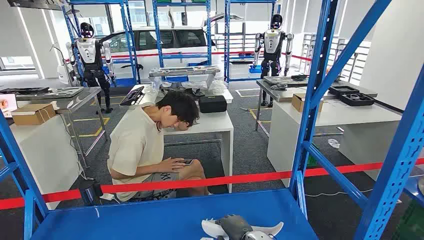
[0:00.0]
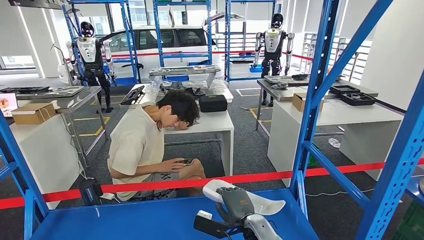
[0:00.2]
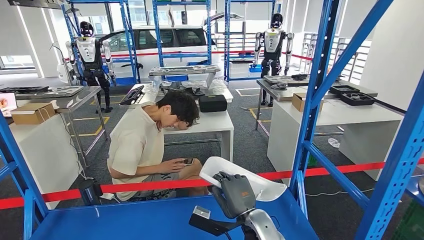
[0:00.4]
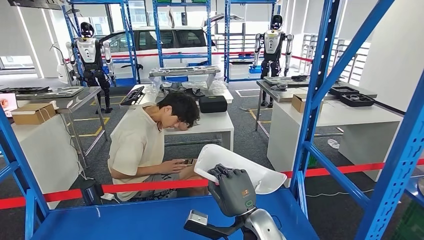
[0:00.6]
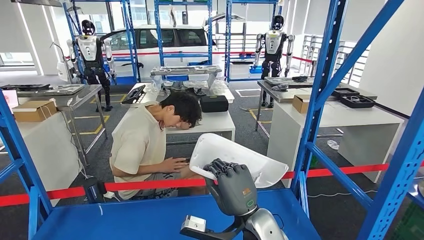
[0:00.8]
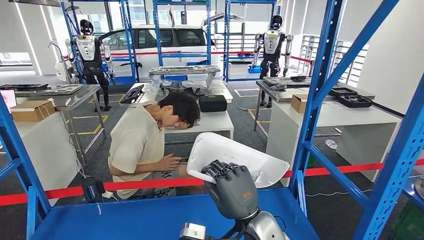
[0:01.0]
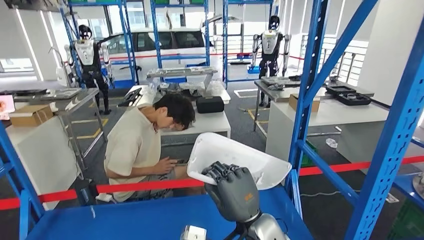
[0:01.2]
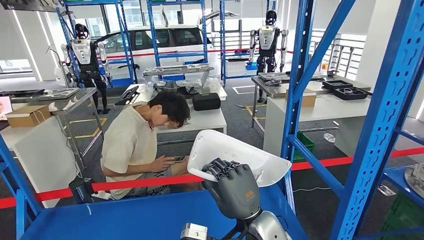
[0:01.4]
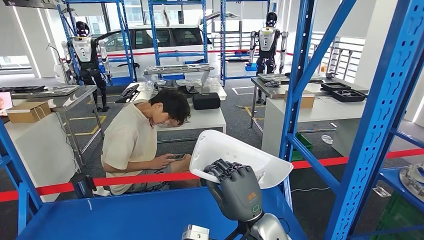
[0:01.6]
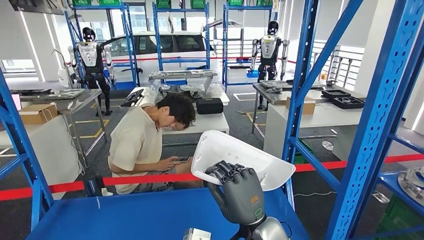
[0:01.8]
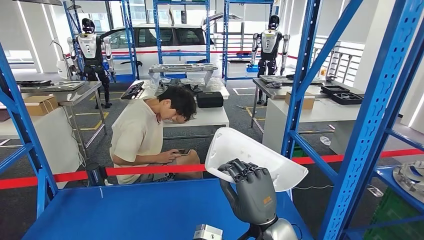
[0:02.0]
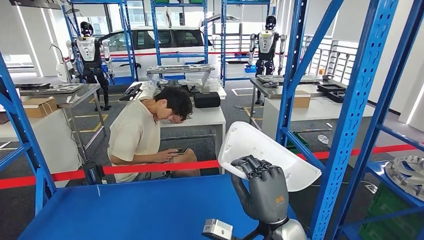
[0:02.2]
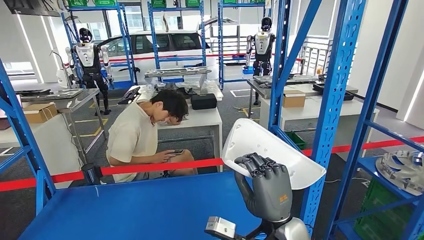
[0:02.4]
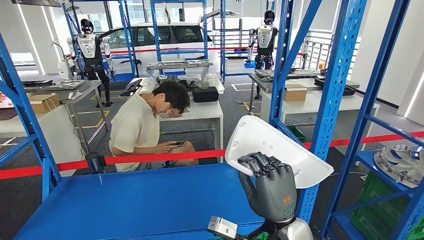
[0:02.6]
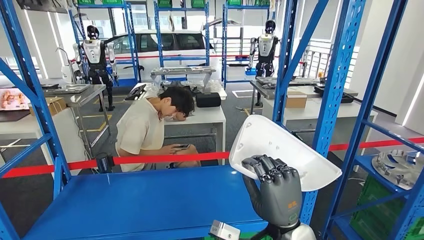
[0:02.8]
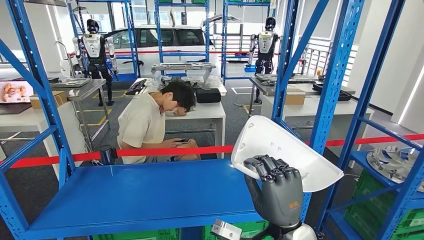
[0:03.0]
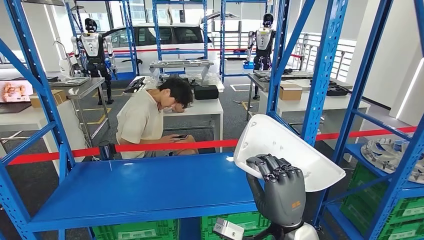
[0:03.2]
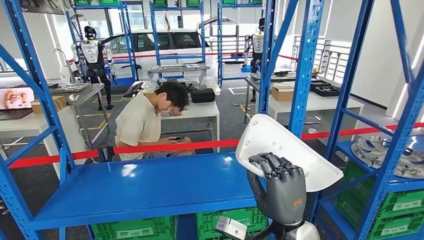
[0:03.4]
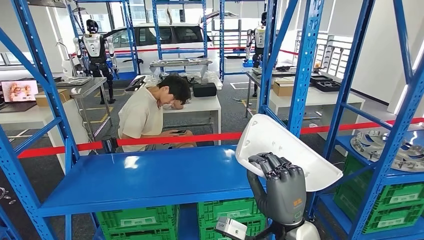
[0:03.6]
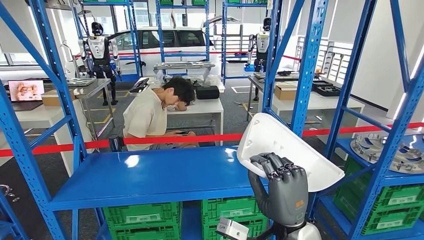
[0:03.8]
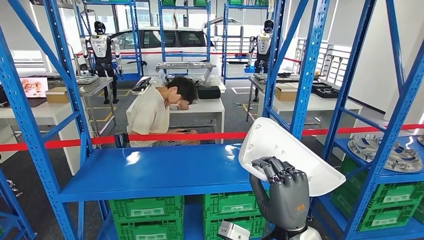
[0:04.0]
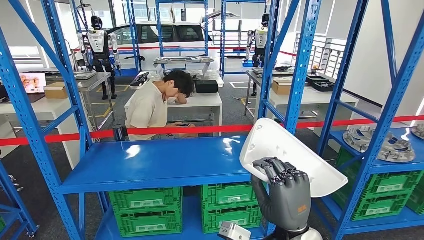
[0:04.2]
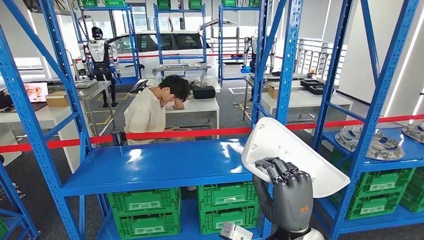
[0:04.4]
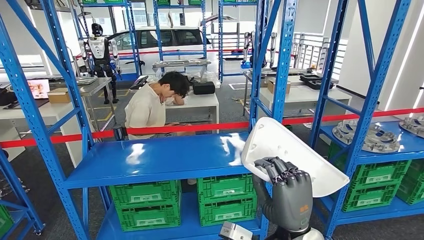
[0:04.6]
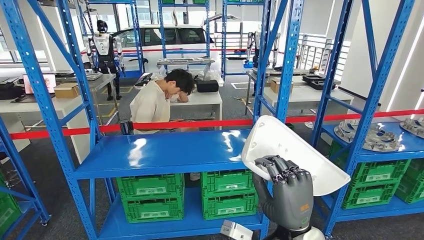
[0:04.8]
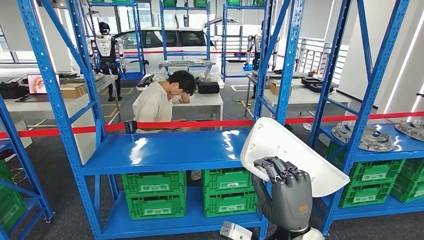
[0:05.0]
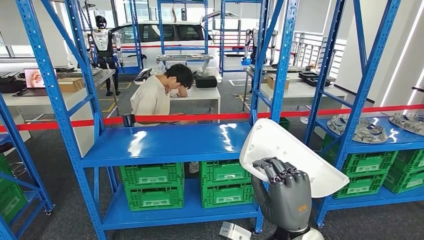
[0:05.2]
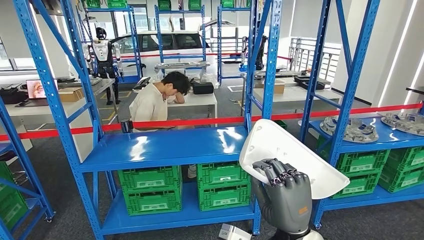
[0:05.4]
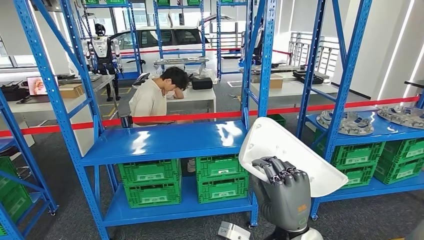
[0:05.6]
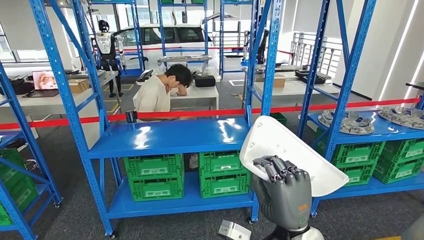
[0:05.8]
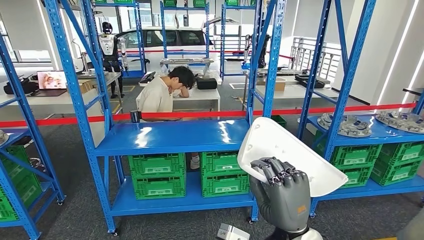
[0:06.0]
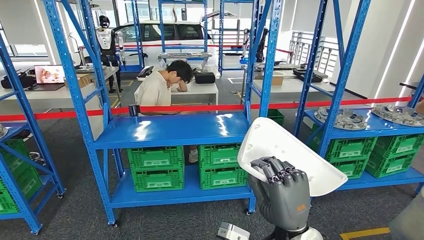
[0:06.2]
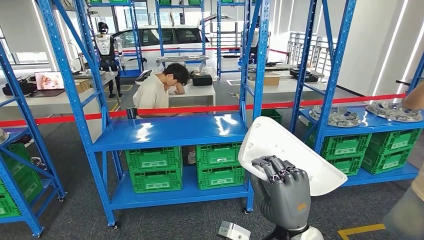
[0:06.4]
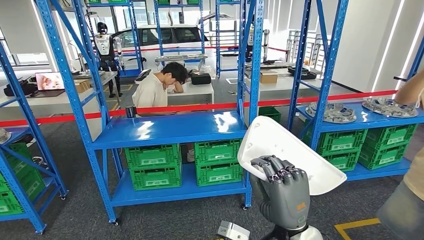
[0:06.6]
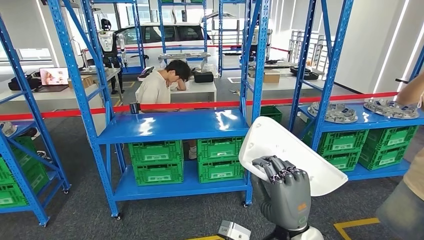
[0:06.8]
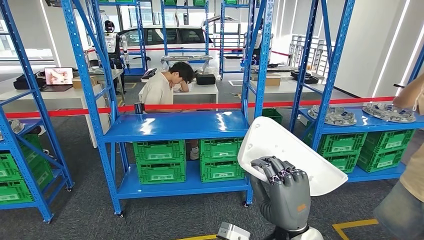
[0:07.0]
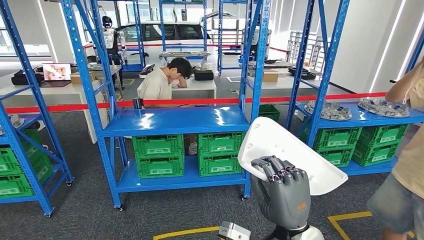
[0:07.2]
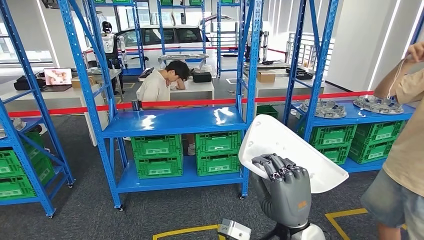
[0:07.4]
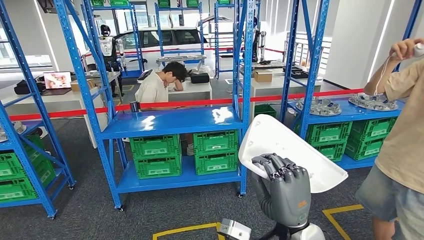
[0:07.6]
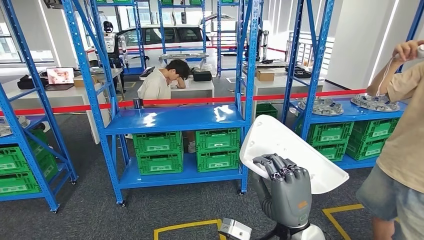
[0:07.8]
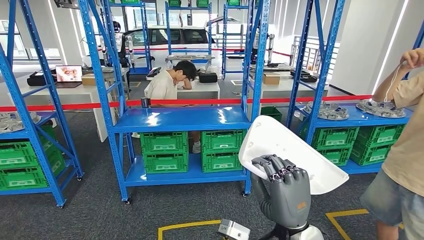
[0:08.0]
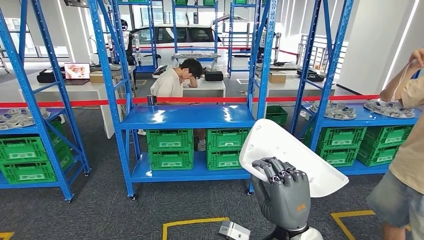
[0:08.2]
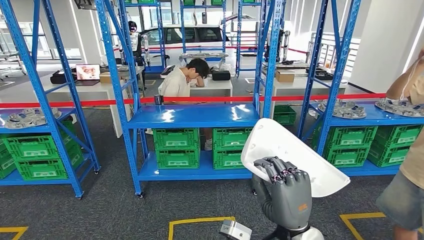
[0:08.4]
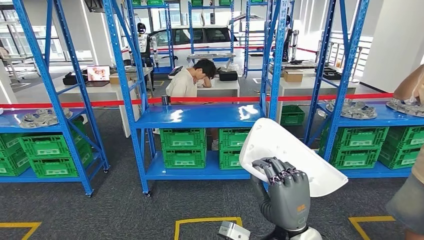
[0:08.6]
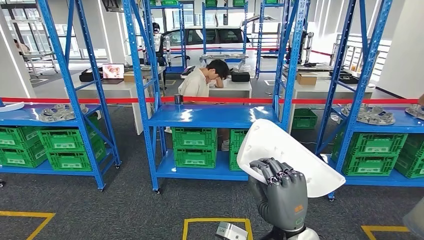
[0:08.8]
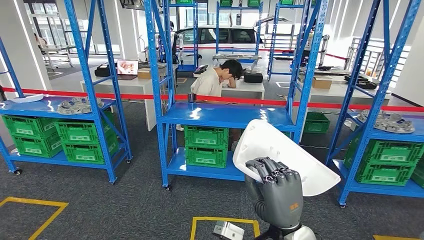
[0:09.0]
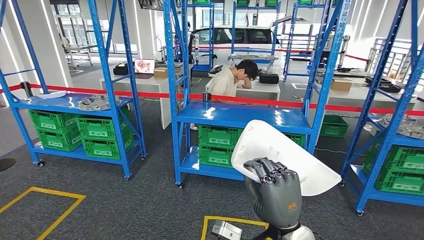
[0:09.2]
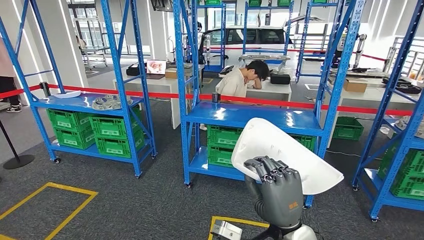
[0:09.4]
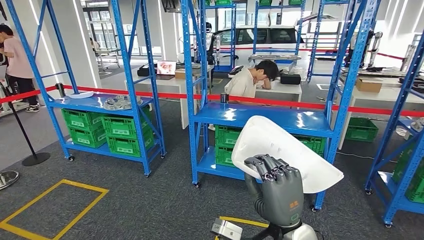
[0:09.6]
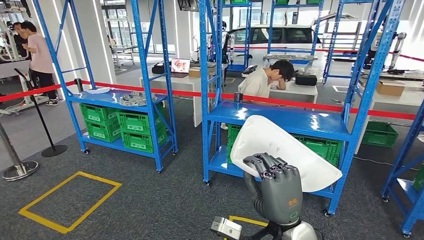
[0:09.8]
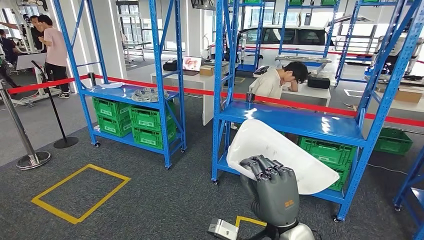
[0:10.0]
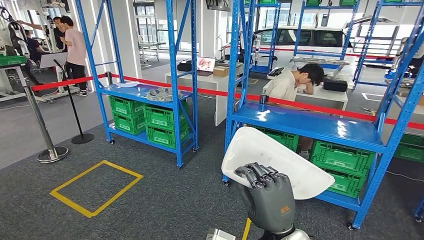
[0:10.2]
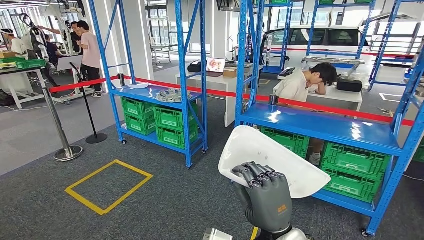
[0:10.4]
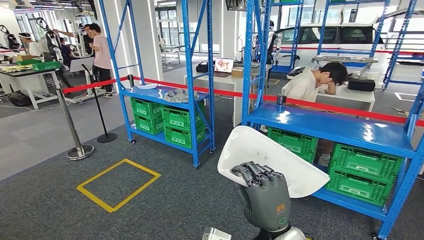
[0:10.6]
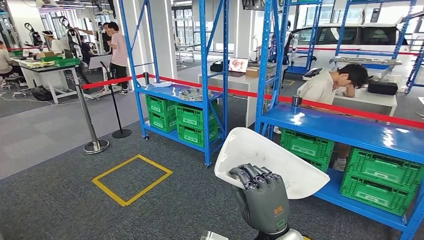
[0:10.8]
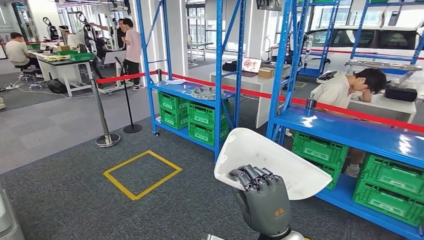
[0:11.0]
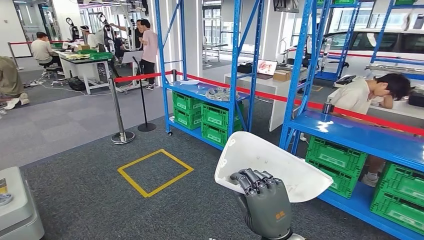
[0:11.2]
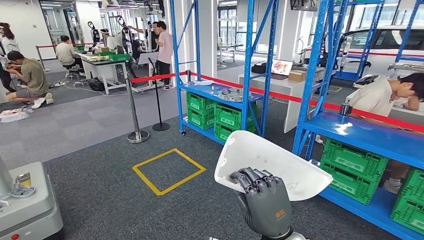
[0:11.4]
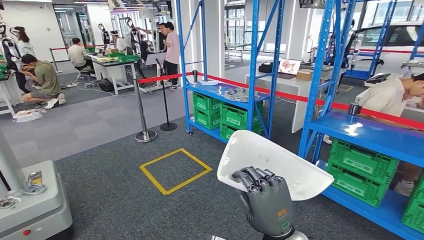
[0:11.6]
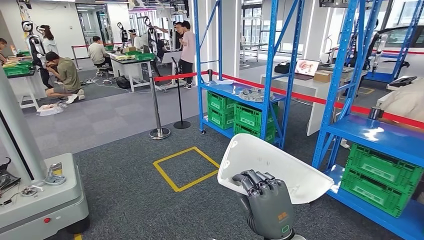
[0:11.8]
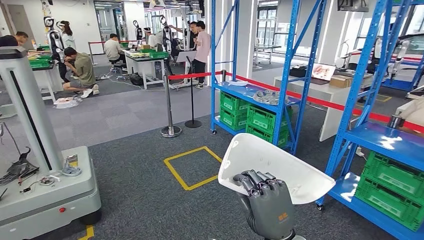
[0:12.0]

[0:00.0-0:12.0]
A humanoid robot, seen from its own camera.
Step, 0:00.0 to 0:03.6: Pick up the small component from the shelf.

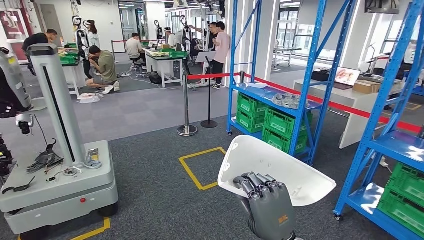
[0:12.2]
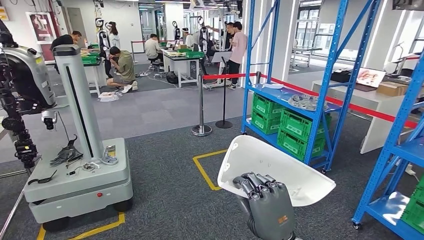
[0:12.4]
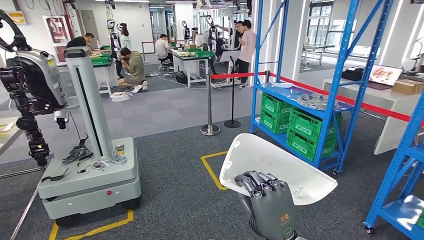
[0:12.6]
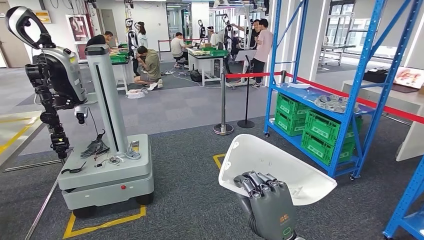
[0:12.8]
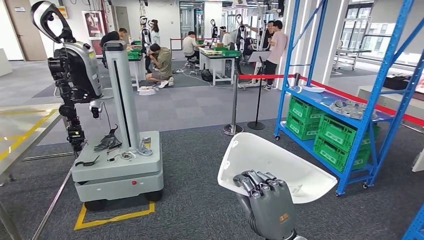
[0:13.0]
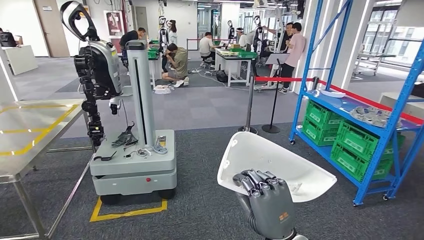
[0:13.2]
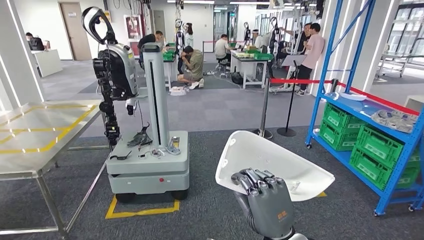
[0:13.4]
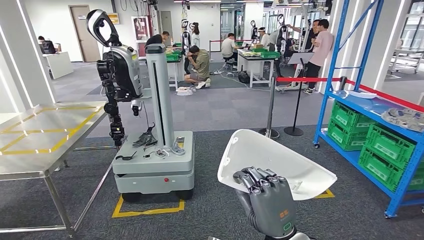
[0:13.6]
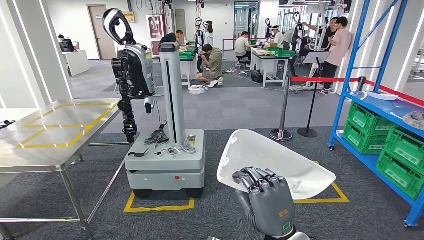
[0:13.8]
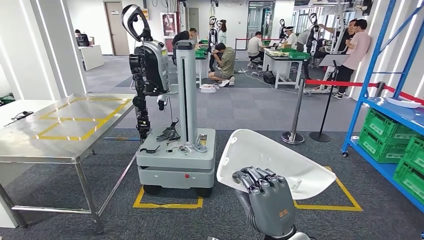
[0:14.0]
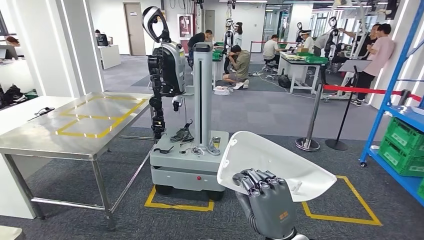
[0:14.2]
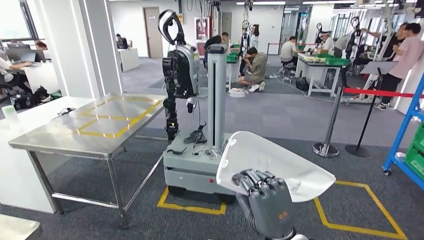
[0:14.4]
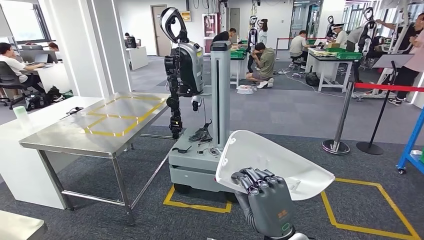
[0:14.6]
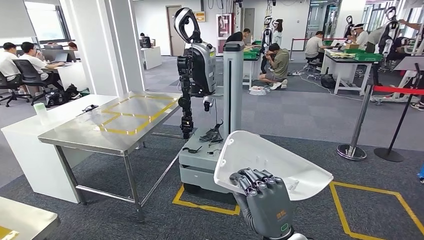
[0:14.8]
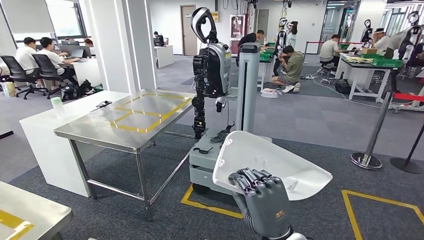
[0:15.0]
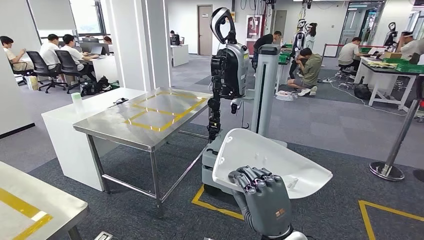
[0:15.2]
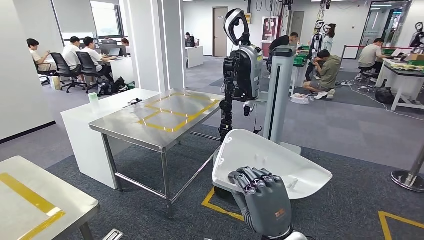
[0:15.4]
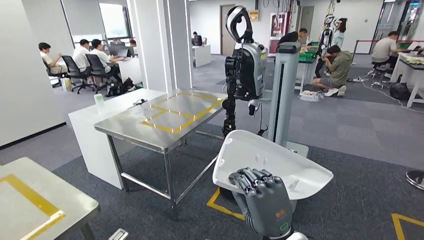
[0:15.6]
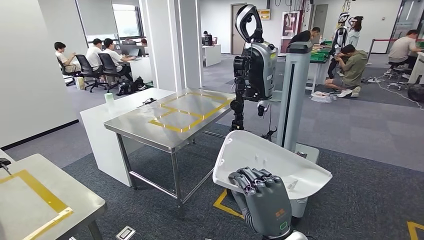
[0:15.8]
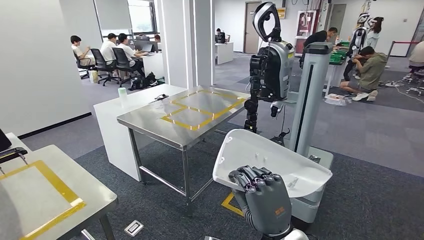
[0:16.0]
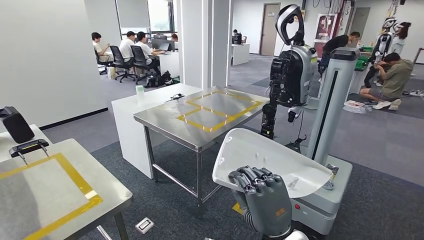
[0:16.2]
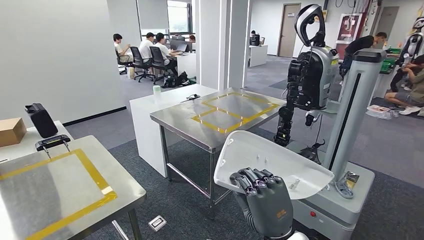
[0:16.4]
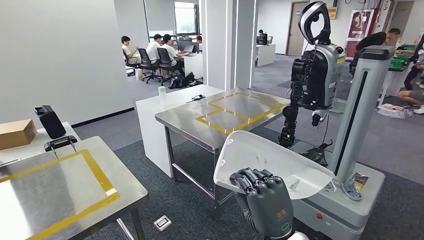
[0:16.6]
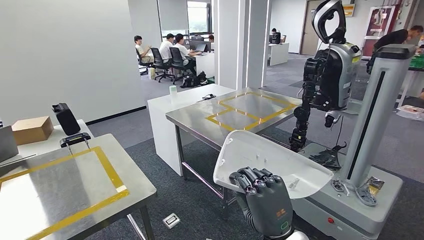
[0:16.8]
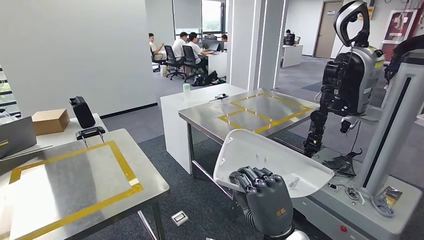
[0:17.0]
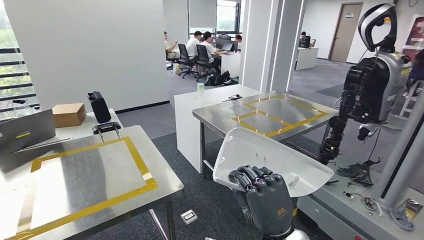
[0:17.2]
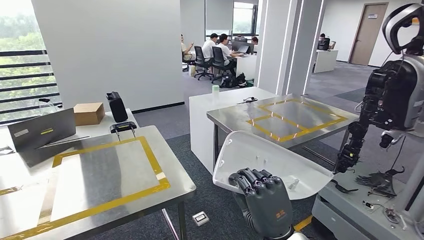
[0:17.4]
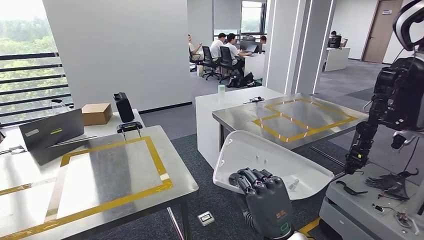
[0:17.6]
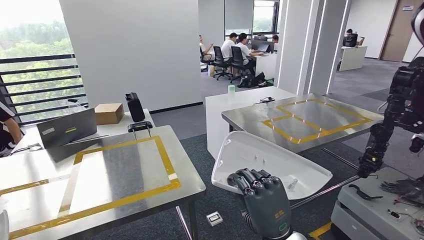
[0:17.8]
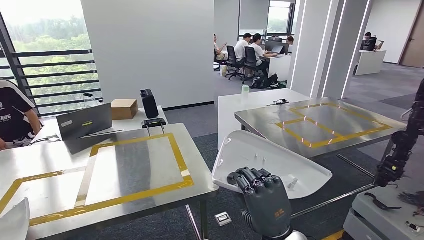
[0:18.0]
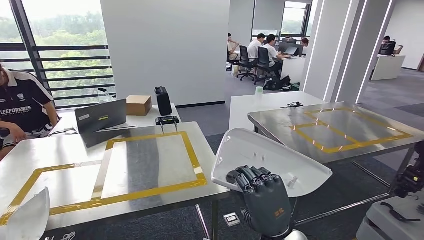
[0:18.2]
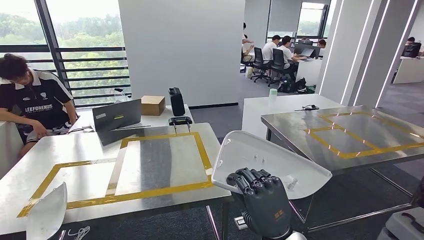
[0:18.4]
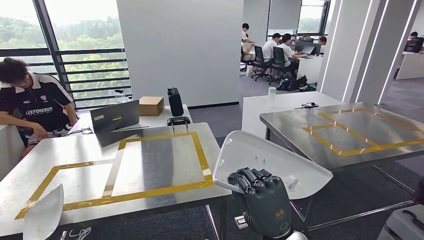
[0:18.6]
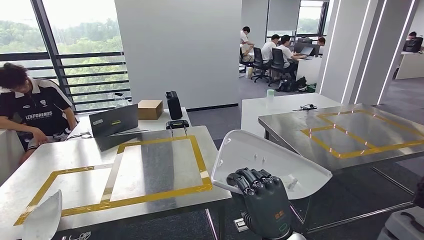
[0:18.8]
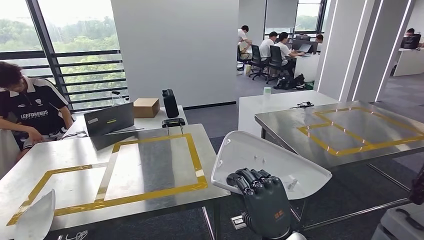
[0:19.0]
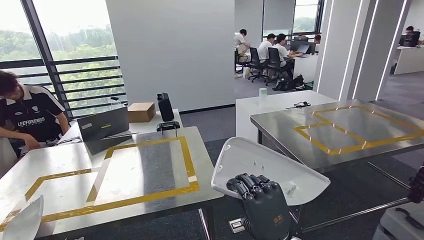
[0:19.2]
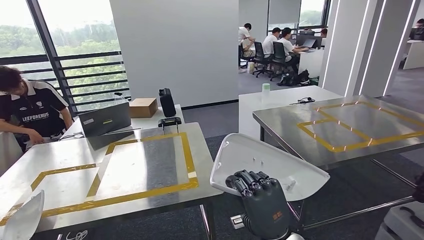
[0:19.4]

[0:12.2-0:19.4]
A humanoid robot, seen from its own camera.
Step, 0:12.2 to 0:18.6: Move the small component to the workbench.
